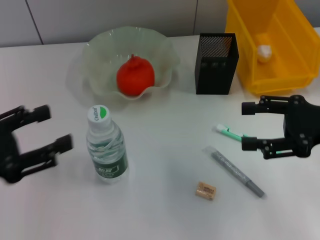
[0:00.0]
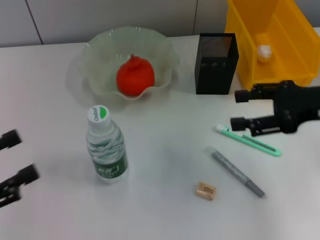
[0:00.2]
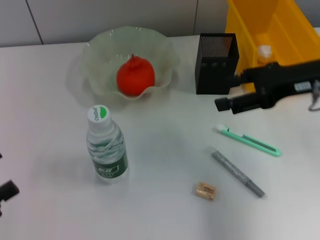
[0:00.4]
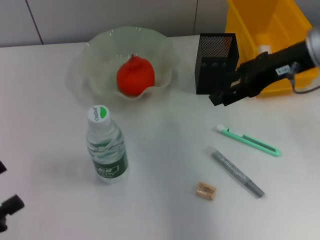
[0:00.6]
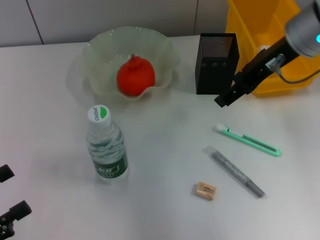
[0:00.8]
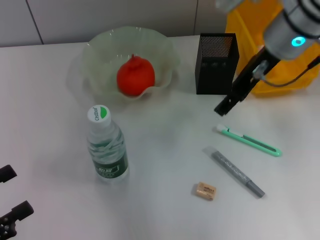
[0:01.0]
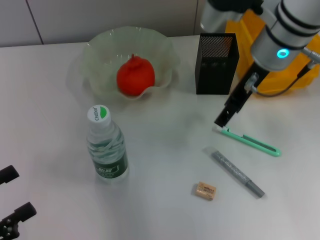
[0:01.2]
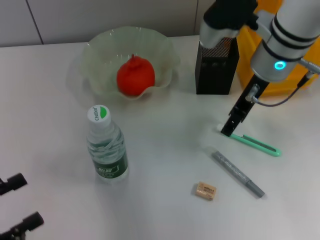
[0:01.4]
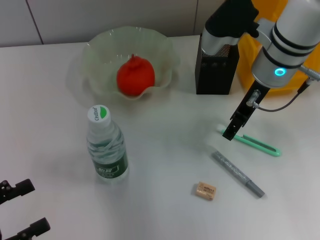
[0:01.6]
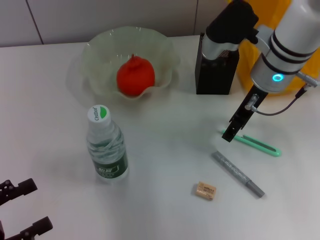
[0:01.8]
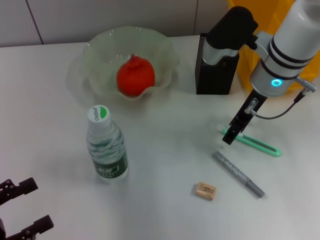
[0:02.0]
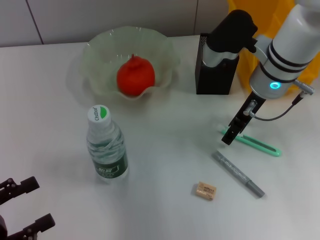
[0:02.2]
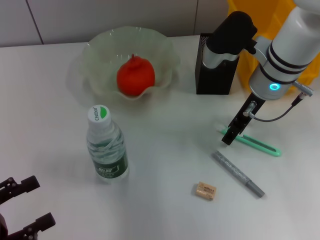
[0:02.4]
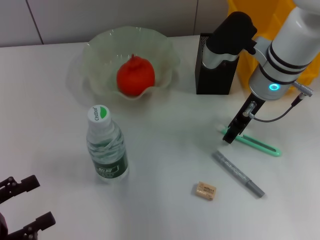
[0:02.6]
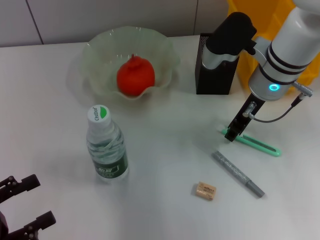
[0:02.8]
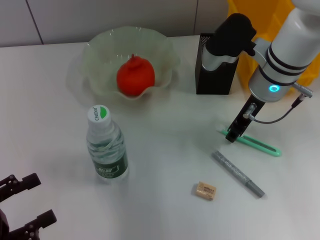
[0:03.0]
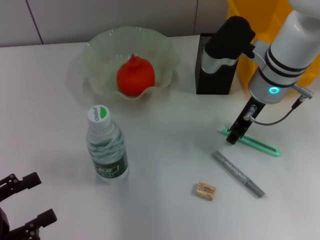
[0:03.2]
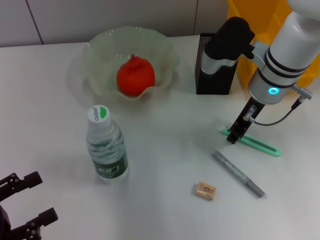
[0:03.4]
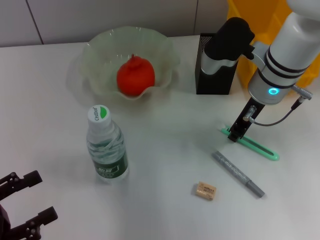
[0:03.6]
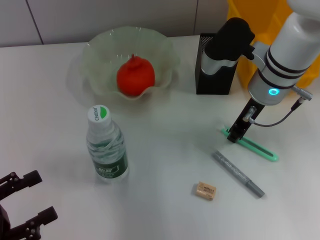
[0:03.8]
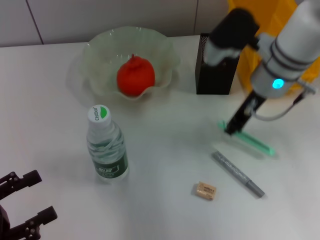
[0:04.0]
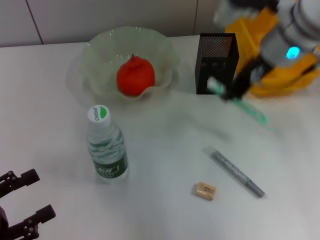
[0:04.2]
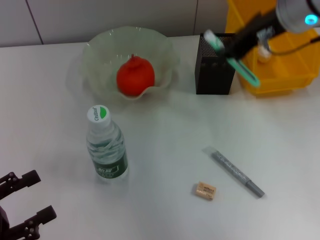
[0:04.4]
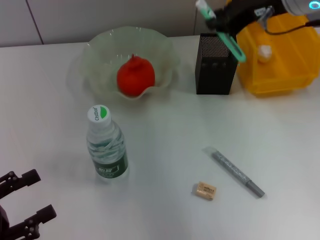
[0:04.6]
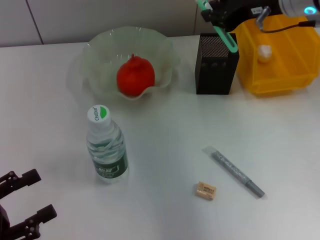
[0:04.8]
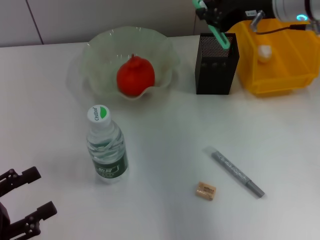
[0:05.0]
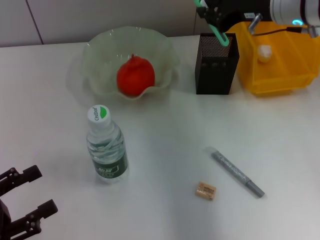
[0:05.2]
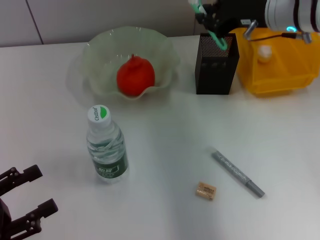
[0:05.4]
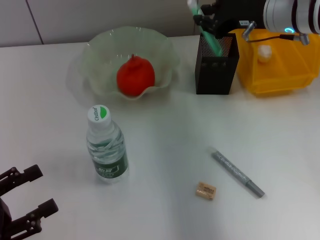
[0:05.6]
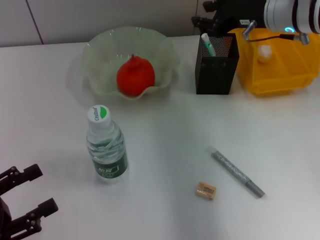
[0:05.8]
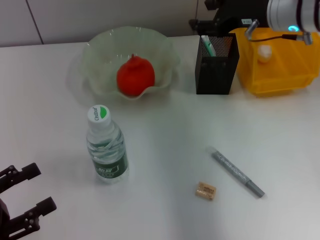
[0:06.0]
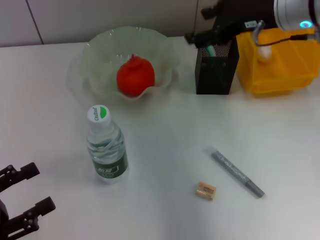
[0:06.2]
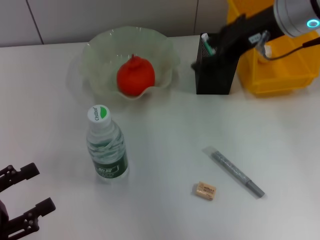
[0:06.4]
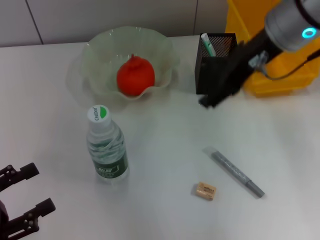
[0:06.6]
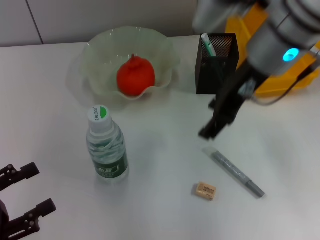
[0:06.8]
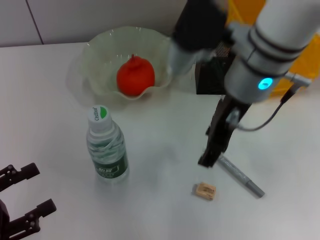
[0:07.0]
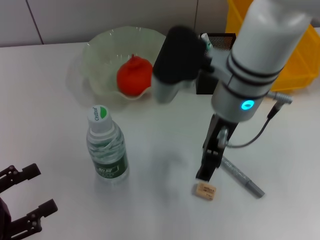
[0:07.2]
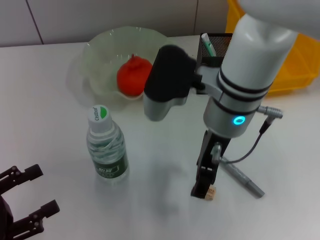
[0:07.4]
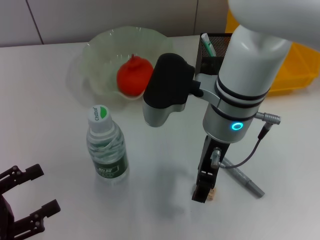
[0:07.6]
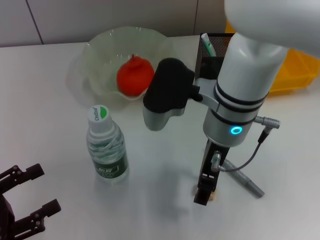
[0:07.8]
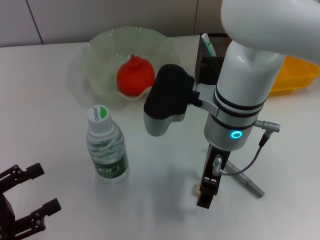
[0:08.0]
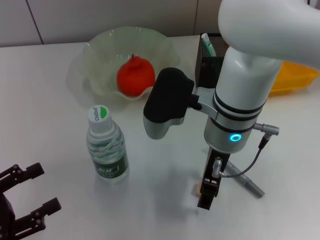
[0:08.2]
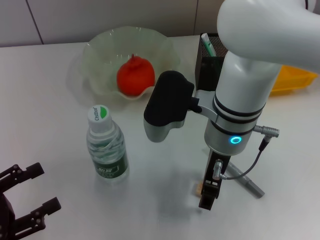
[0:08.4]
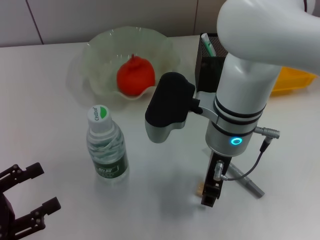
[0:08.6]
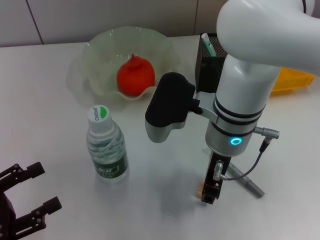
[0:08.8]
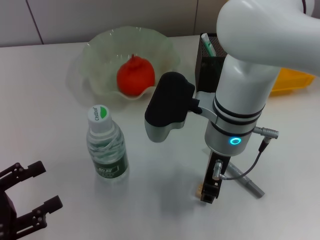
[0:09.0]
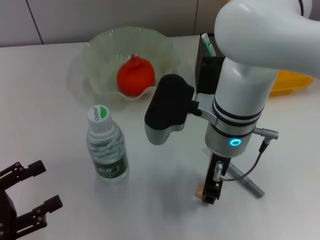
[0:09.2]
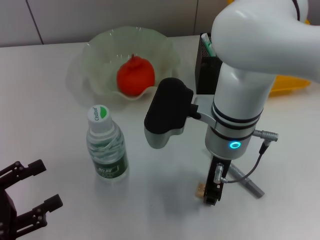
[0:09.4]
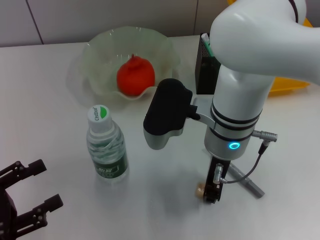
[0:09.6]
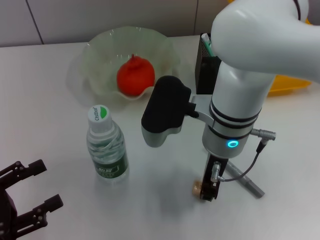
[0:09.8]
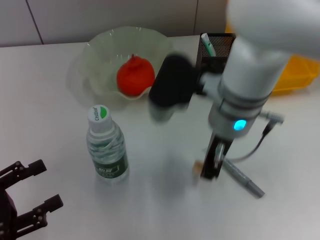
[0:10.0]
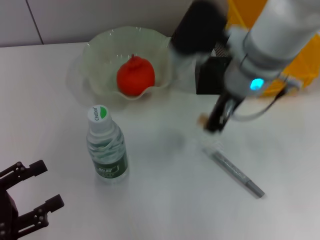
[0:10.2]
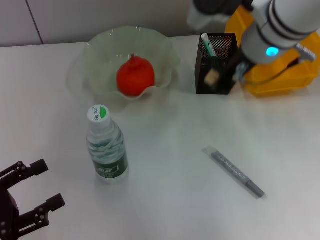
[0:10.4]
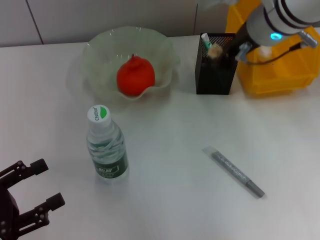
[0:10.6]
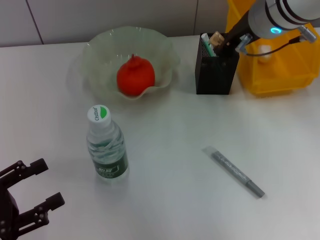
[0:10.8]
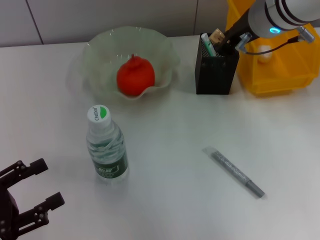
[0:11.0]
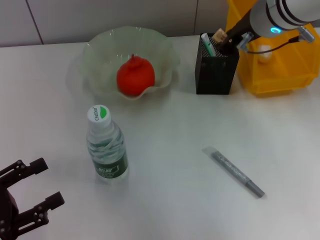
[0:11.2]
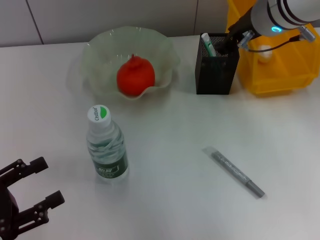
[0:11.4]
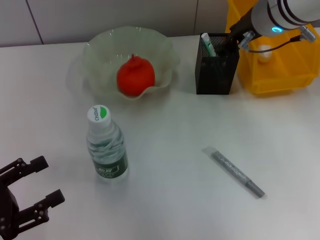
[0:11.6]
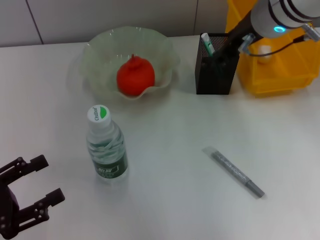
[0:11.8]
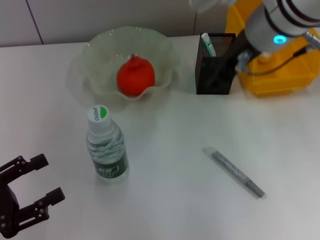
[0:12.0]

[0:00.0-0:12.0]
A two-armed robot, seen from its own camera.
Step, 0:00.0 to 0:03.4: Grab the blue utility knife with the right hand.
Step, 0:03.6 to 0:05.6: Place the blue utility knife into the pen holder with the right hand.
Step, 0:06.0 to 0:09.4: Grab the eraser with the right hand.
Step, 0:09.6 to 0:11.8: Put the eraser into the pen holder with the right hand.
0:00.0 to 0:01.6: The right gripper shifts approximately 20 cm to the left and forward. The left gripper heads downward and backward, covering some 10 cm.
0:01.6 to 0:03.0: The right gripper closes up.
0:03.0 to 0:04.4: The right gripper travels upward by roughly 10 cm, and closes up.
0:04.4 to 0:06.0: The right gripper heads downward, covering roughly 5 cm, and opens its fingers.
0:06.0 to 0:07.6: The right gripper moves to the left and backward, approximately 15 cm.
0:07.6 to 0:09.0: The right gripper closes its fingers.
0:09.0 to 0:10.4: The right gripper travels upward, to the right and forward by roughly 10 cm.
0:10.4 to 0:12.0: The right gripper opens up.

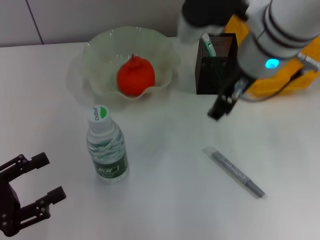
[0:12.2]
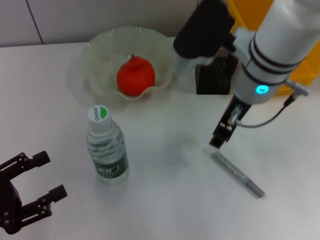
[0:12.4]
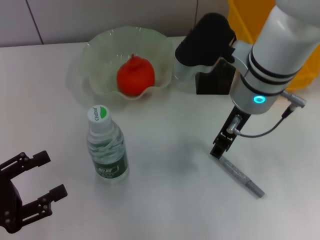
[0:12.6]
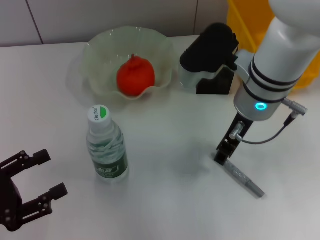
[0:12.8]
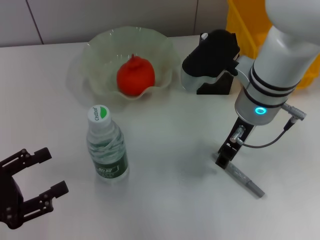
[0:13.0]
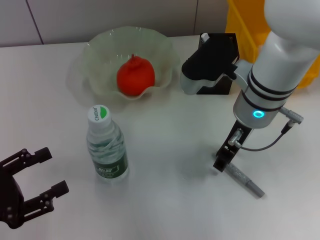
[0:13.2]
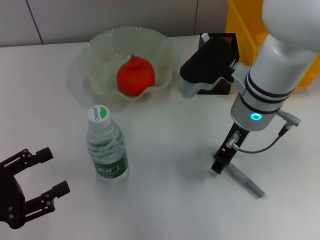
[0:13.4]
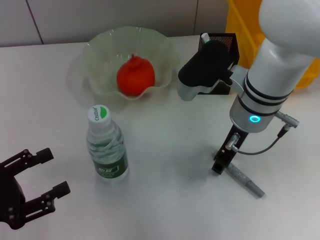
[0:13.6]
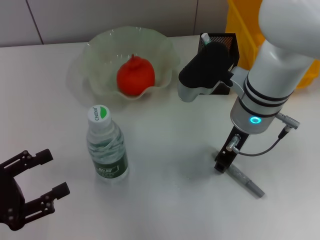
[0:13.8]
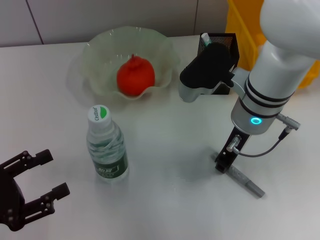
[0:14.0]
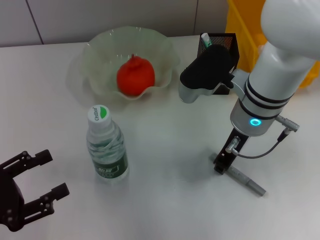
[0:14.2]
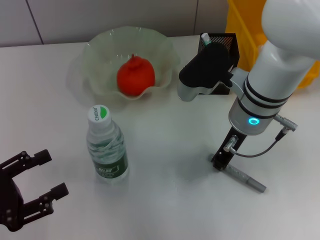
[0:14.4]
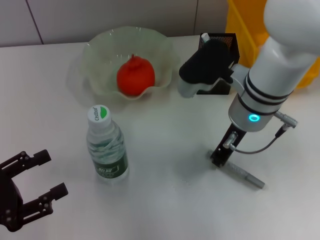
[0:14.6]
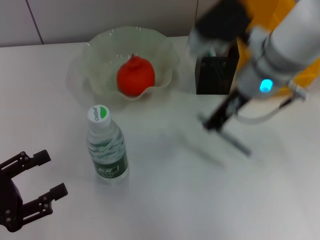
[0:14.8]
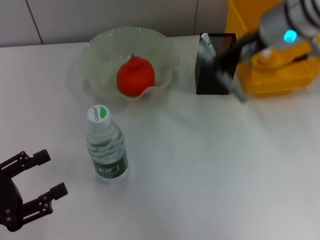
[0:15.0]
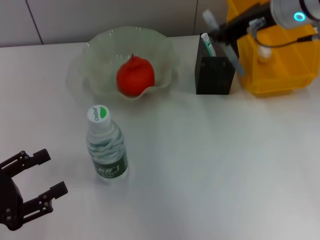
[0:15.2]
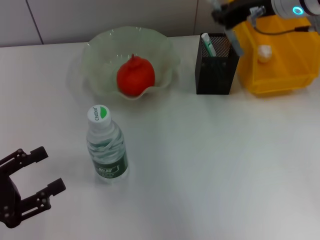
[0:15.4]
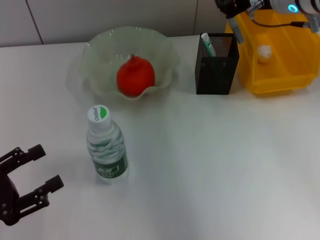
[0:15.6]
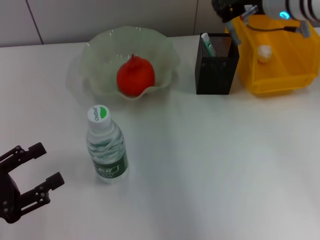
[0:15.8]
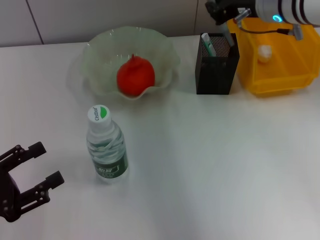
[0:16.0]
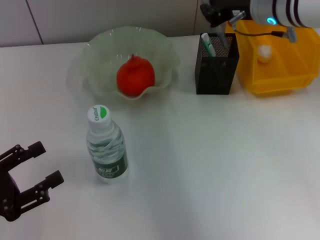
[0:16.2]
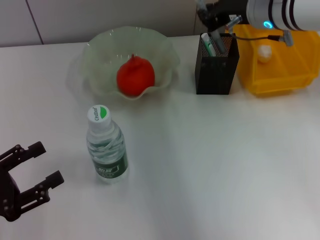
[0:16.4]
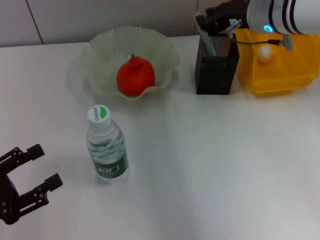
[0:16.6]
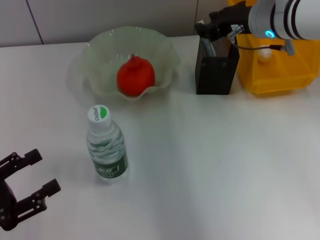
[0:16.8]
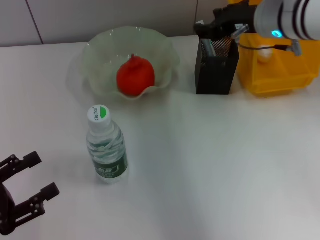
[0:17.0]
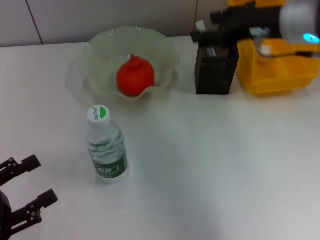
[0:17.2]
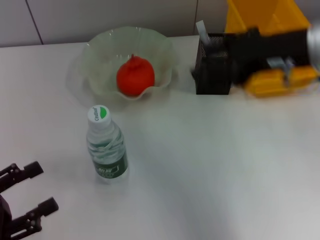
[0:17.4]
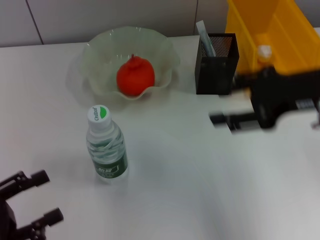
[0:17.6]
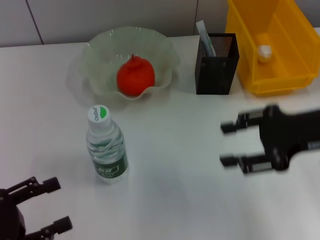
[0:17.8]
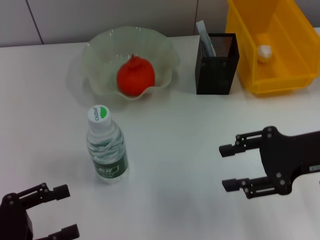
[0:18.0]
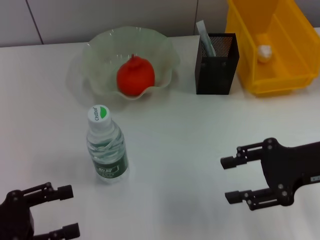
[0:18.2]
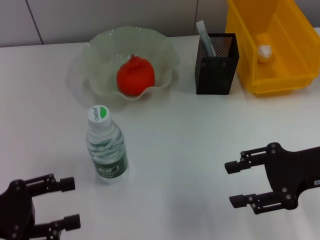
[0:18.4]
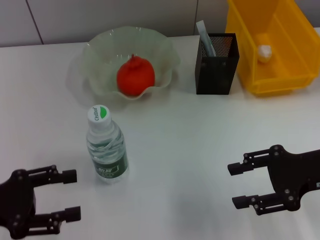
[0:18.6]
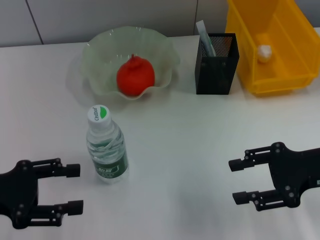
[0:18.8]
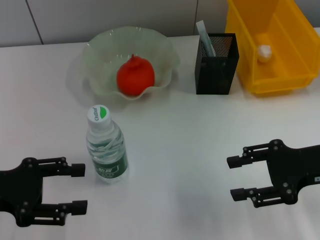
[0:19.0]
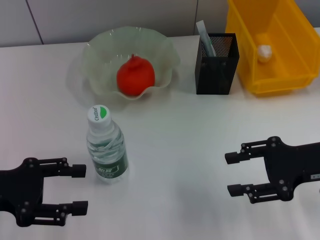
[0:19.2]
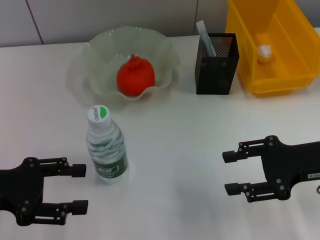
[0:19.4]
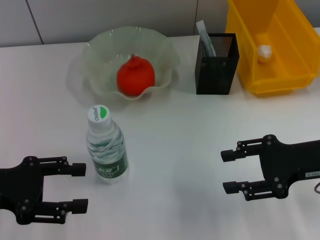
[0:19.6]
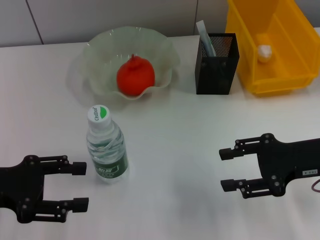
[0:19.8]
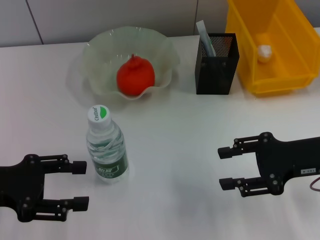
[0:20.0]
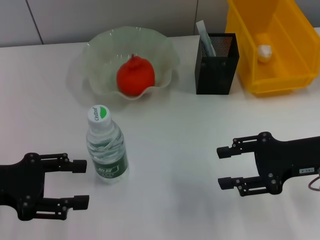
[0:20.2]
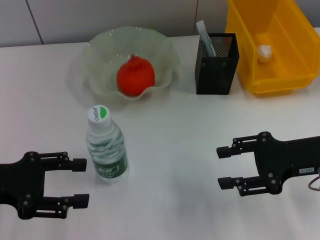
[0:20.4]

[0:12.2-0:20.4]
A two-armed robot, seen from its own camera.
Step, 0:12.2 to 0:14.0: Grab the gray glue with the right hand.
Step, 0:14.4 to 0:16.6: Place the gray glue into the pen holder with the right hand.
0:12.2 to 0:13.8: The right gripper moves downward, approximately 10 cm.
0:13.8 to 0:15.4: The right gripper is displaced upward, to the right and forward by approximately 15 cm, and closes up.
0:15.4 to 0:17.2: The right gripper goes some 5 cm backward, and opens its fingers.
0:17.2 to 0:18.8: The right gripper goes approximately 15 cm downward, backward and to the right; the left gripper heads forward, covering roughly 5 cm.
0:18.8 to 0:20.4: The grippers stay close to where they were, moving slightly.

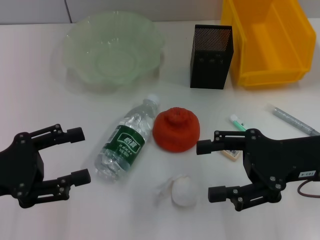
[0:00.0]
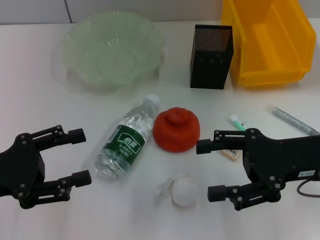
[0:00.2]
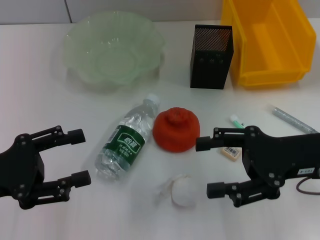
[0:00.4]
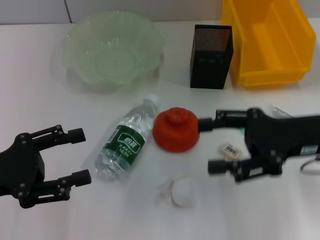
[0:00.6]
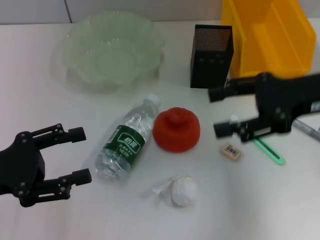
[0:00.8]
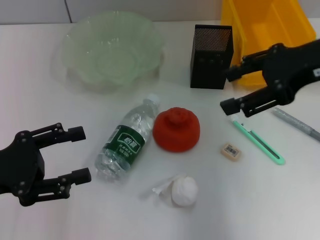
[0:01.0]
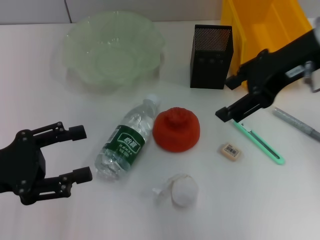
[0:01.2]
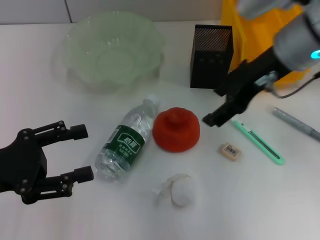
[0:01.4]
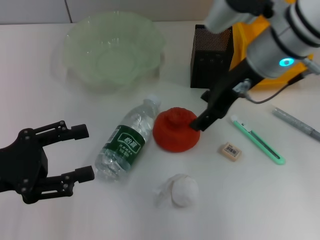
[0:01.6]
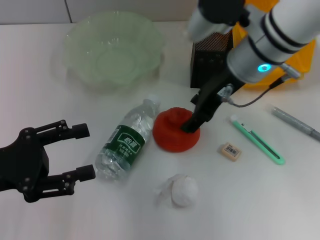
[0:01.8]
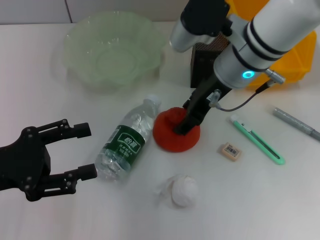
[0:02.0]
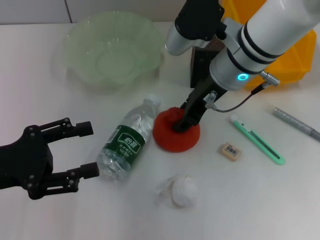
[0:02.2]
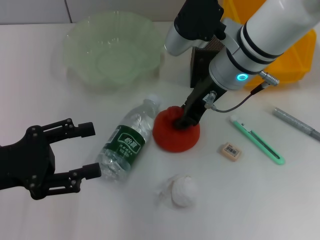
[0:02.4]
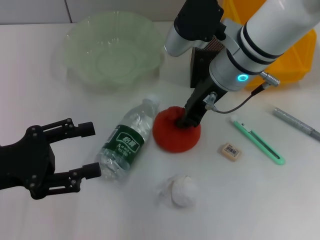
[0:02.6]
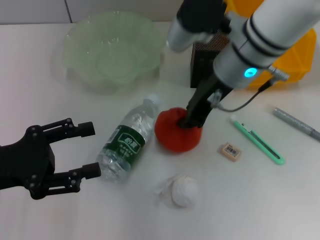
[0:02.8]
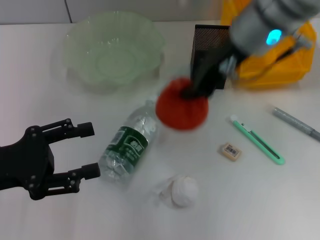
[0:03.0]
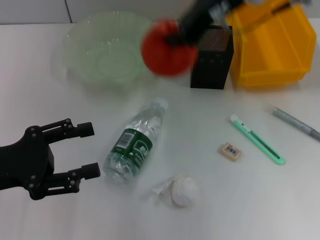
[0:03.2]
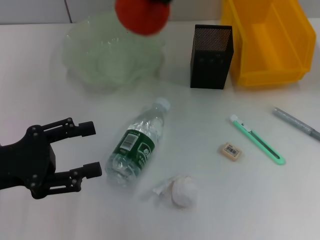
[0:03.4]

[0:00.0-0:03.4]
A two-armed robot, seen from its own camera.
Step, 0:00.0 to 0:02.6: Grab the orange with the right hand.
0:00.0 to 0:01.6: The right gripper moves to the left, forward and upward, about 20 cm.
0:01.6 to 0:03.4: The right gripper moves upward, forward and to the left, roughly 10 cm, and closes.
